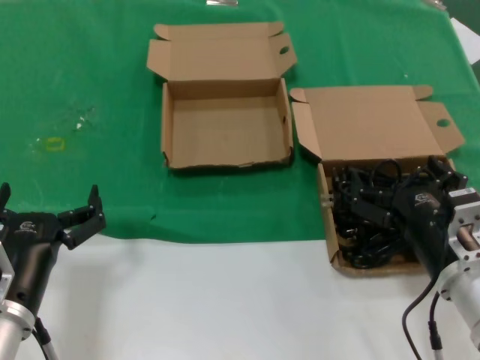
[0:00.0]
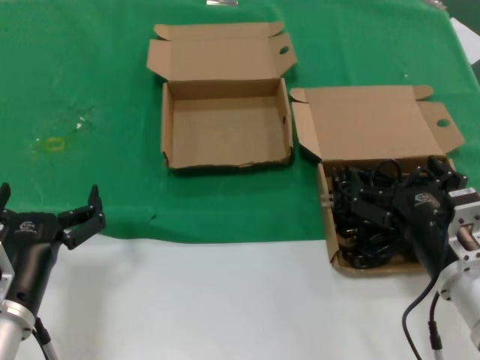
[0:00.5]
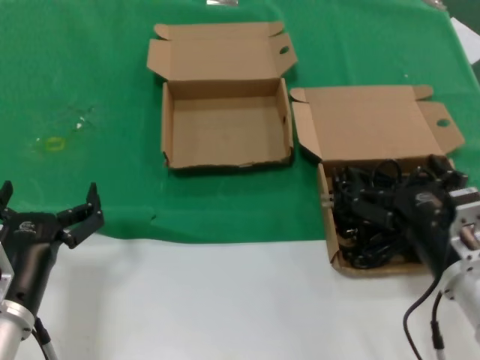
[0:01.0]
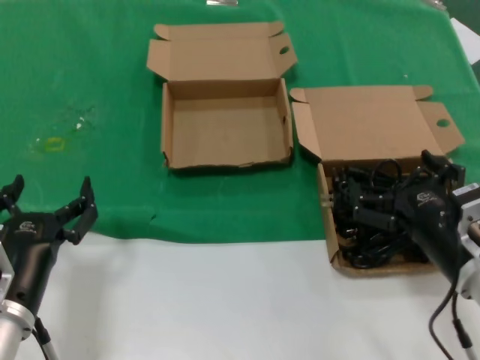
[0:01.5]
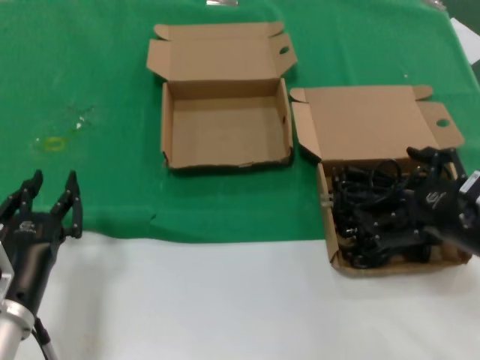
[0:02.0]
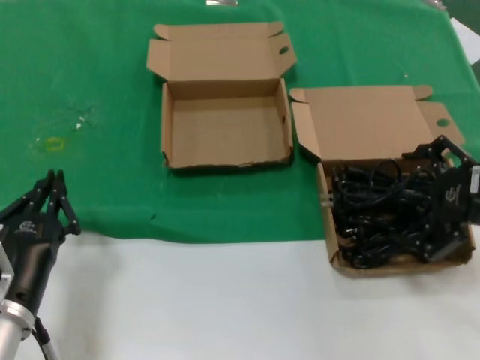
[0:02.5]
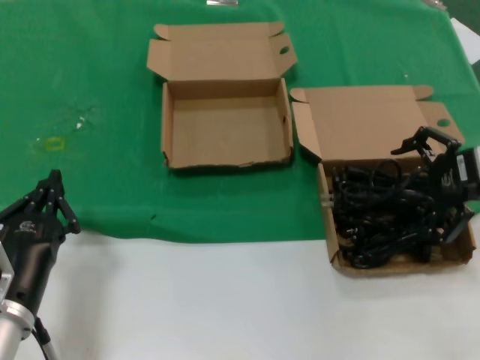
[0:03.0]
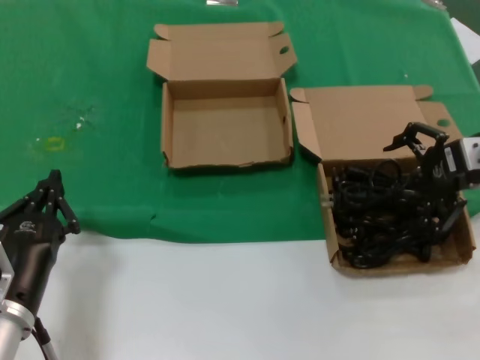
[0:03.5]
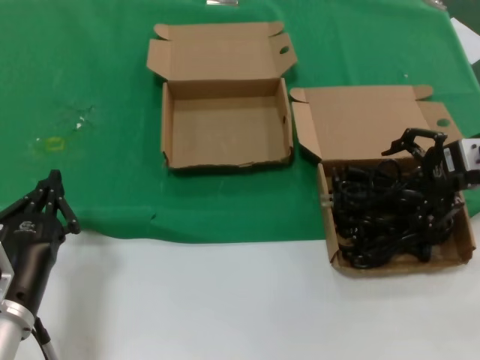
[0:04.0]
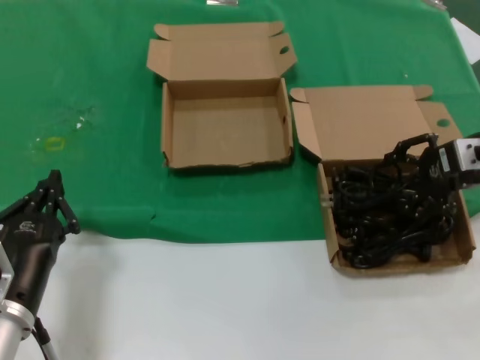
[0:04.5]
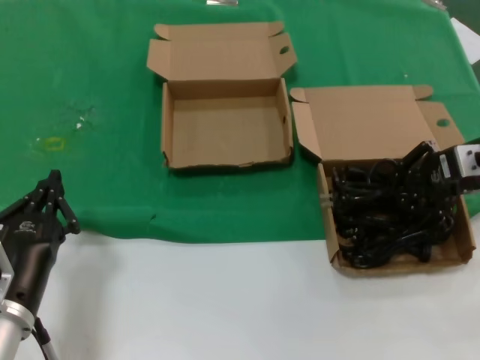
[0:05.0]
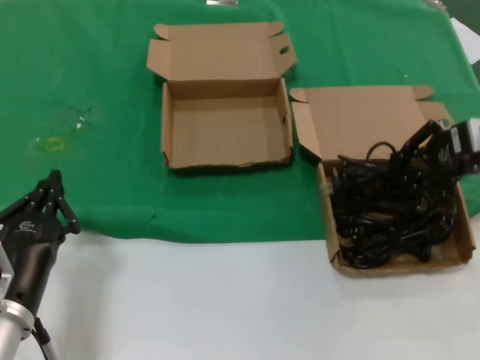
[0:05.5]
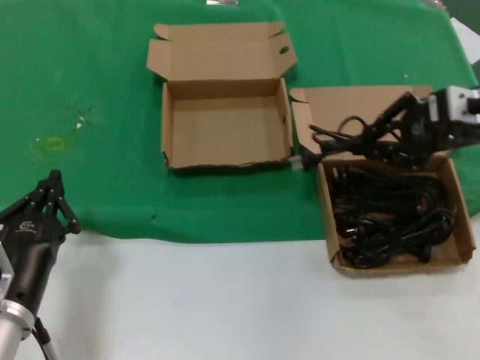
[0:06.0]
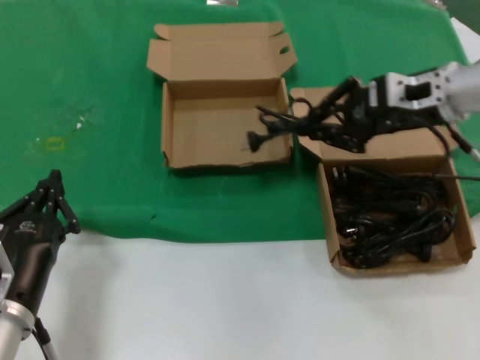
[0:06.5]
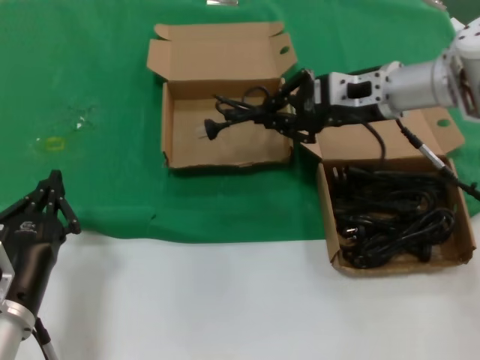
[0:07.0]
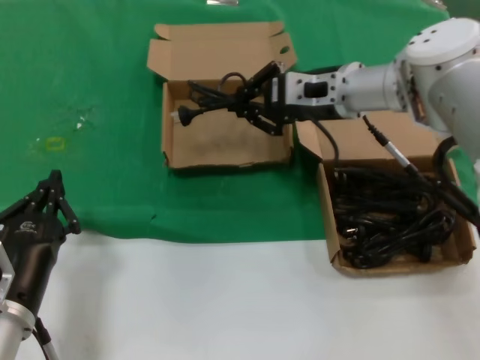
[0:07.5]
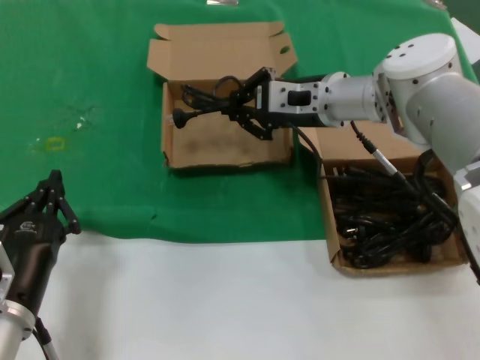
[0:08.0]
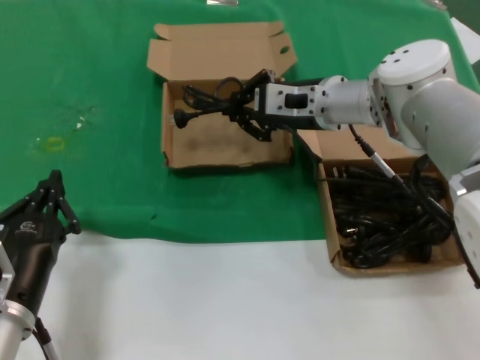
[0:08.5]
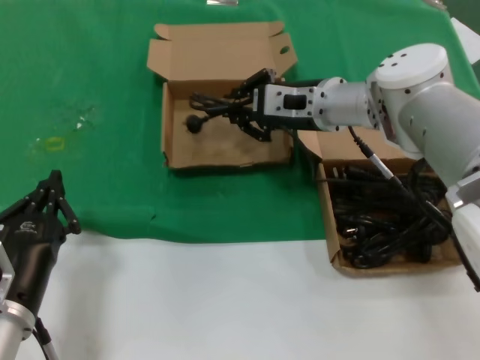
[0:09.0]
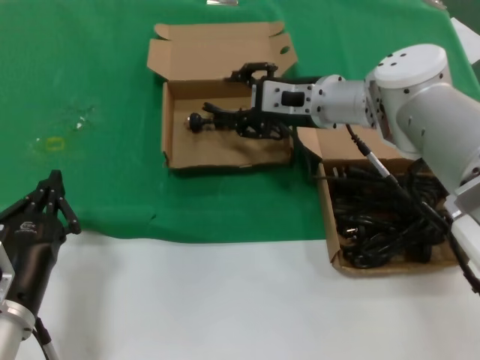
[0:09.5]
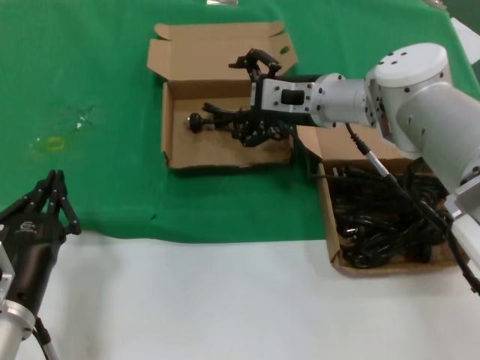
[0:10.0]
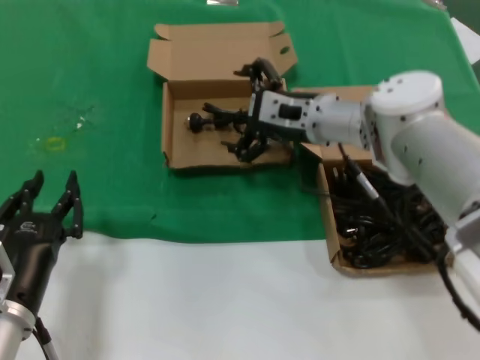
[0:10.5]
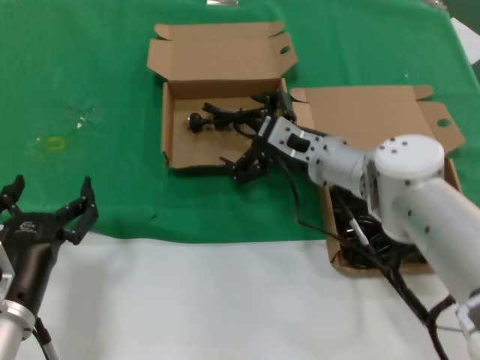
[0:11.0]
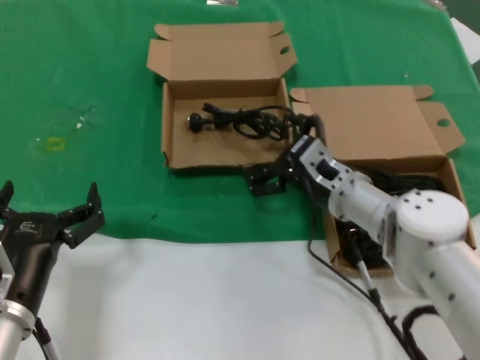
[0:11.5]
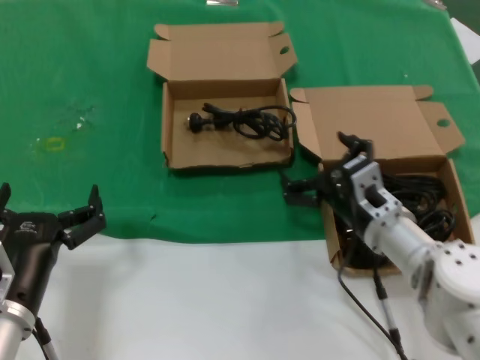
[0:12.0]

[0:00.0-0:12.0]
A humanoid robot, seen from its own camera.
Task of the whole recording: take the parts from the box containing them and put them into an empty box.
Step, 0:00.0 to 0:05.0: Grasp the data cable.
Step, 0:05.5 to 0:10.0: Place the data cable in the another box.
0:00.0 to 0:02.0: The right hand moves to the right and upward, about 10 cm.
0:02.0 to 0:04.0: The right hand travels forward and upward by approximately 20 cm.
0:04.0 to 0:06.0: The right hand goes some 5 cm upward.
0:06.0 to 0:08.0: The right hand shifts some 20 cm to the left and forward.
0:08.0 to 0:10.0: There are only small adjustments of the hands.
0:10.0 to 0:12.0: The right hand moves downward and backward, approximately 20 cm.

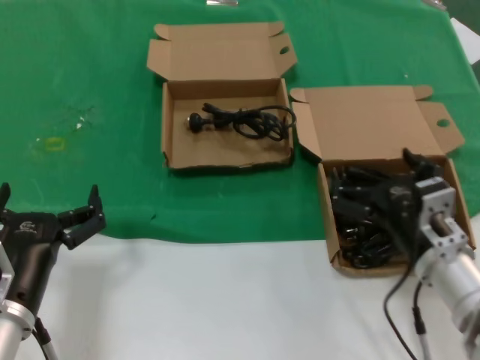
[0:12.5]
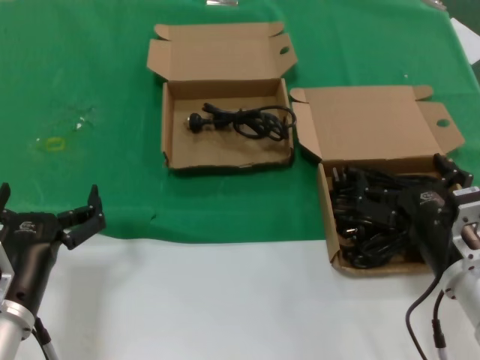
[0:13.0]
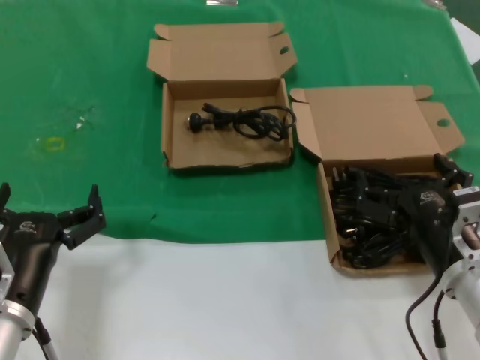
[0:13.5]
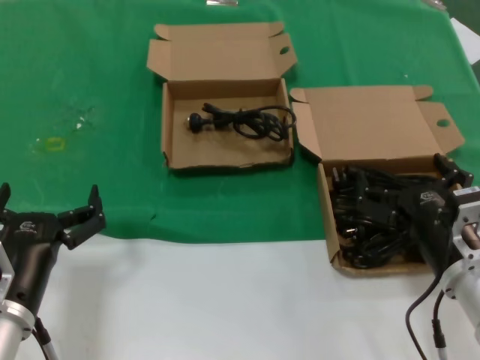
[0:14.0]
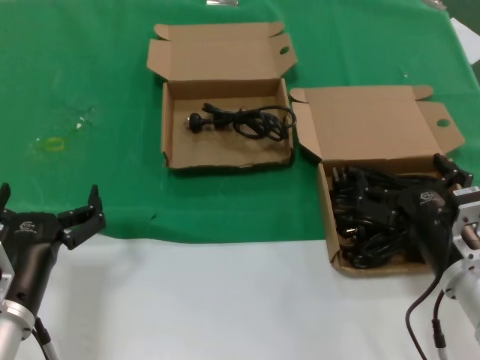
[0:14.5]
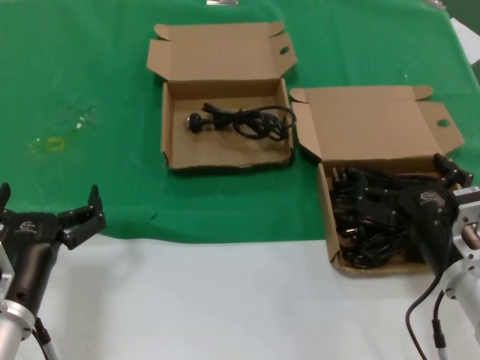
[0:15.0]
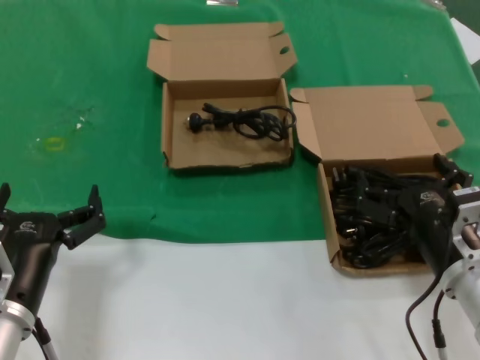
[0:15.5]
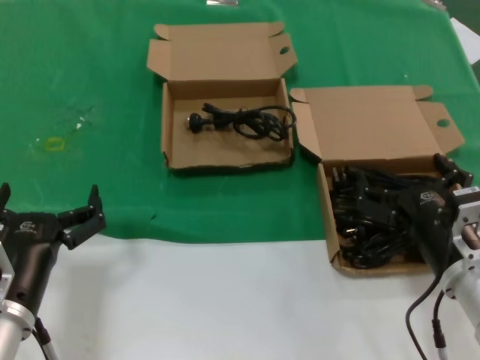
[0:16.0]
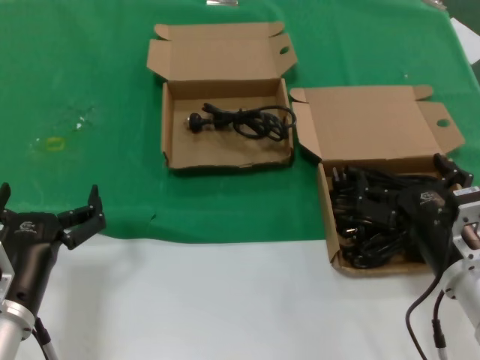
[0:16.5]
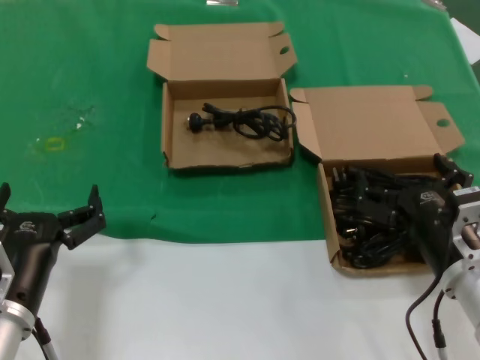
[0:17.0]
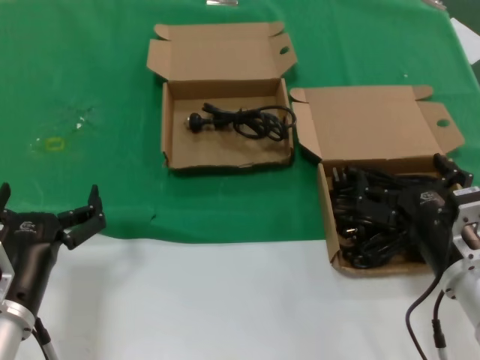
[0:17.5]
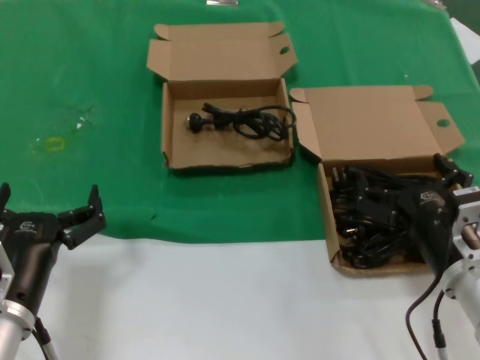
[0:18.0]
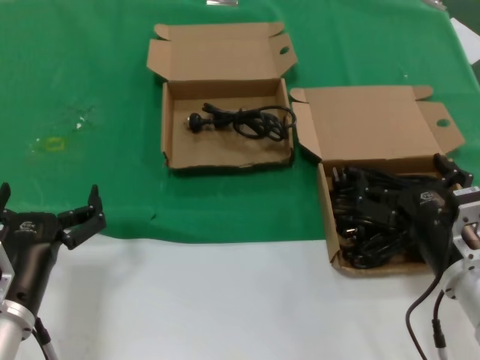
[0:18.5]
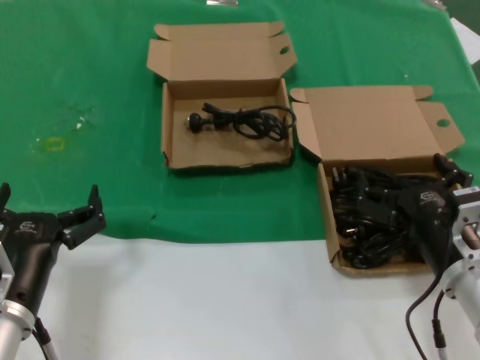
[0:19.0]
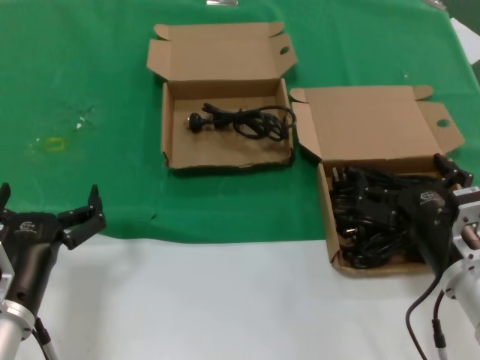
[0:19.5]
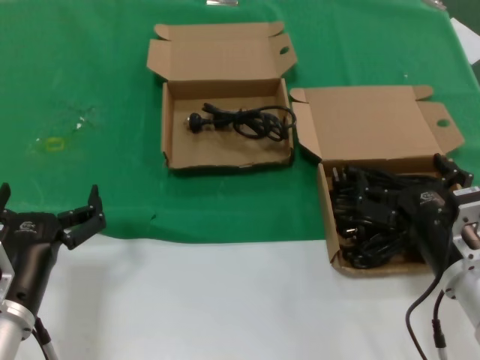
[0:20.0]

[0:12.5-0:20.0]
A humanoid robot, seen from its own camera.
Task of the whole recording: take the parts from the box containing them and put them into an empty box.
0:12.5 to 0:14.5: The hands move only a little.
0:14.5 to 0:20.0: The two hands keep their place.

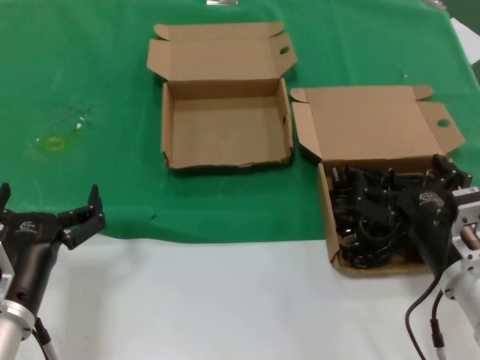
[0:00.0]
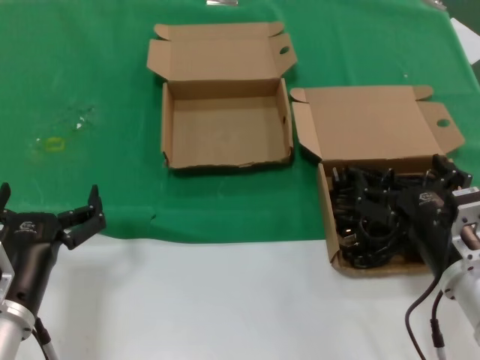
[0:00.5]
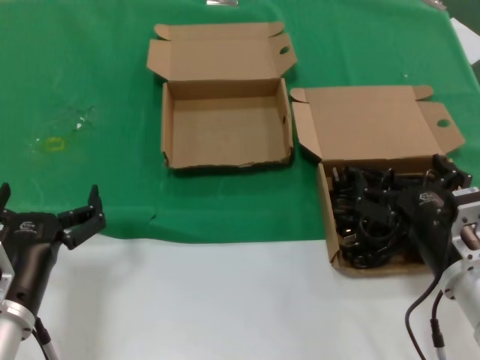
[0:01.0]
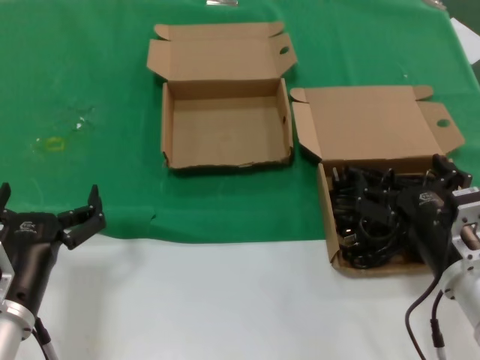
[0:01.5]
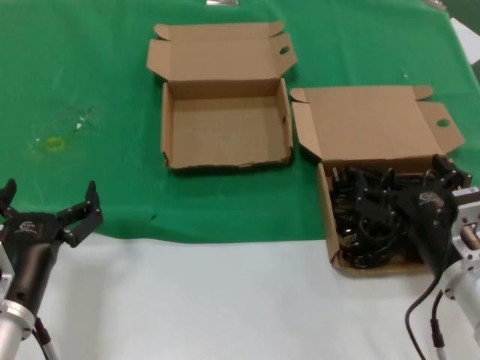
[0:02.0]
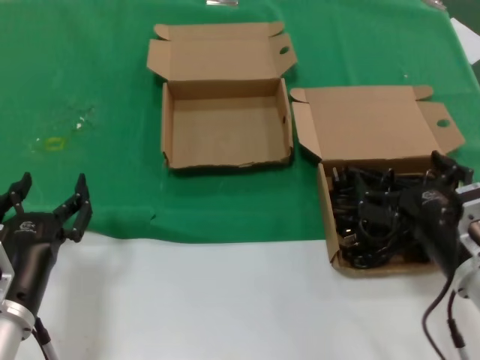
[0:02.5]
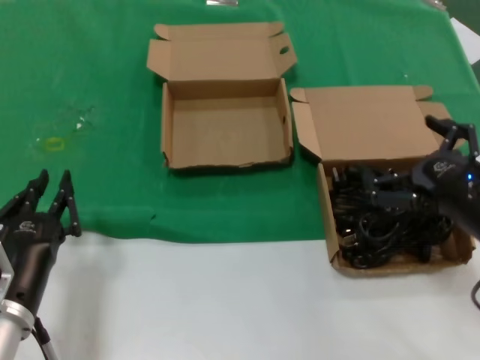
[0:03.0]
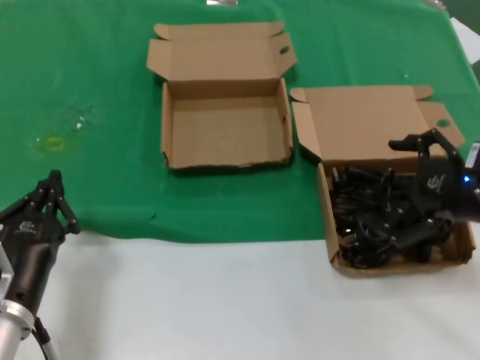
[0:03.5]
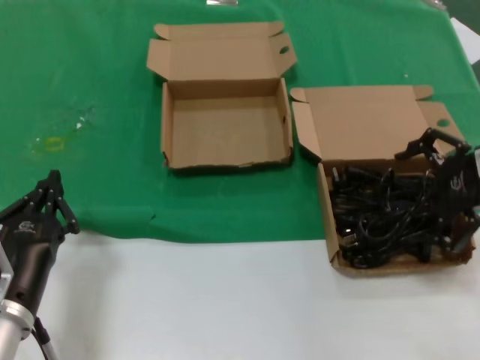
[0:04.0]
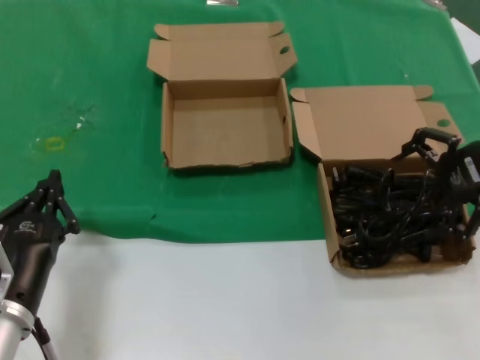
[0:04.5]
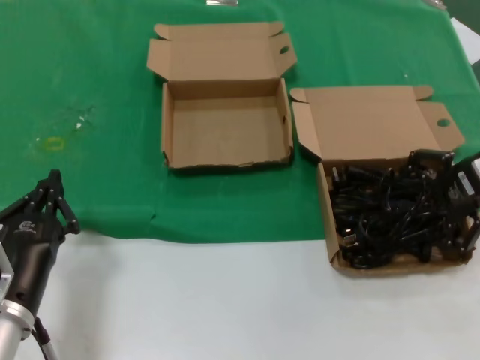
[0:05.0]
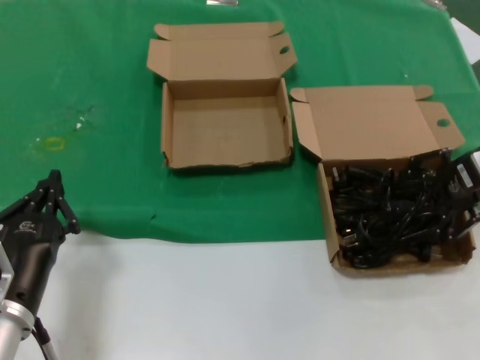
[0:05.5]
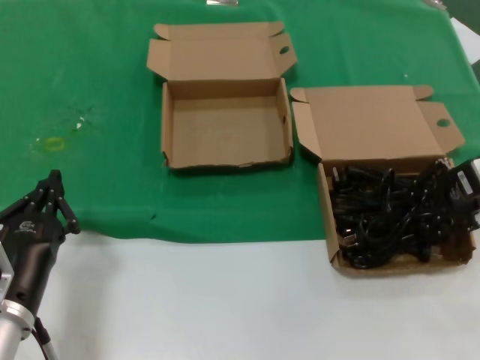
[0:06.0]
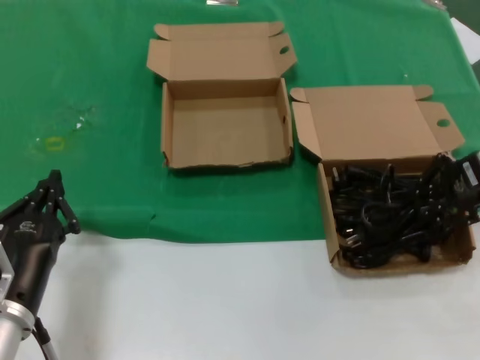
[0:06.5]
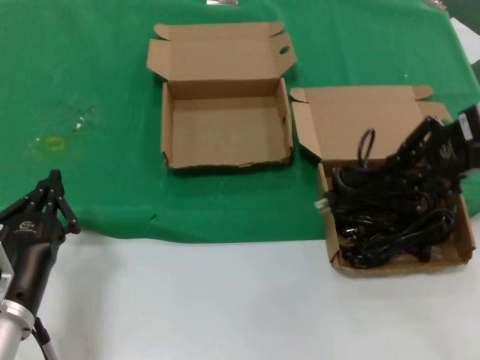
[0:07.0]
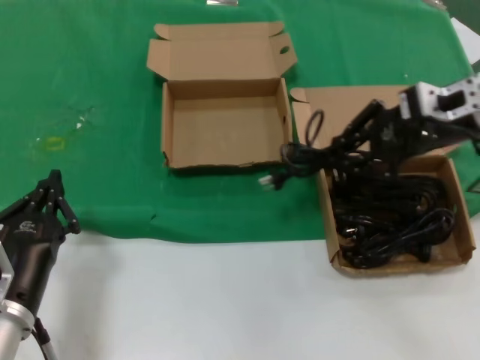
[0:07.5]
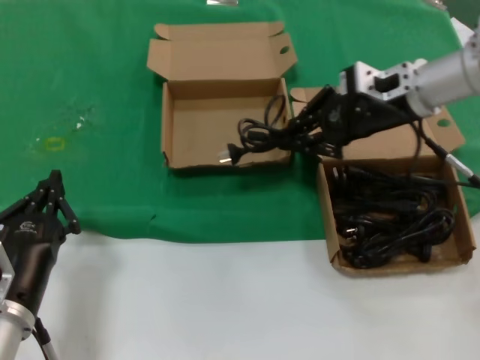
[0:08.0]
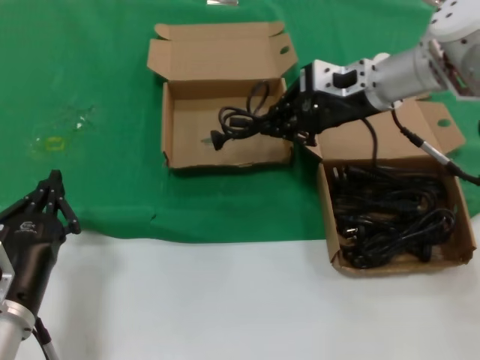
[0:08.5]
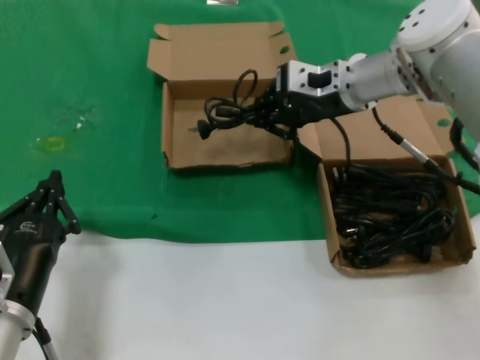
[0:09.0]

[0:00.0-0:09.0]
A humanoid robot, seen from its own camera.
Task of the whole recording: take the parts from the box containing them and put them into an empty box.
Step, 0:00.0 to 0:06.0: Grasp the data cable.
0:00.0 to 0:02.0: Neither hand changes place.
0:02.0 to 0:04.5: The right hand goes about 25 cm upward, forward and to the right.
0:04.5 to 0:07.0: The hands move only a little.
0:07.0 to 0:09.0: The right hand moves to the left and forward, approximately 20 cm.
